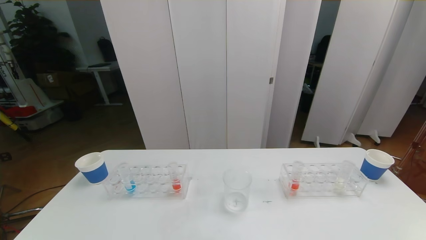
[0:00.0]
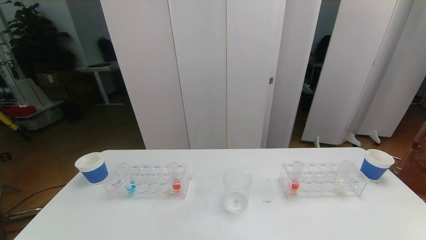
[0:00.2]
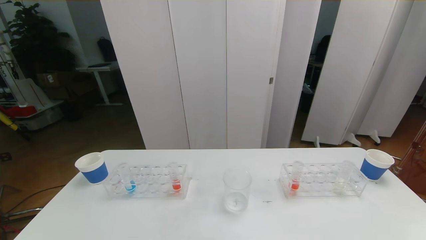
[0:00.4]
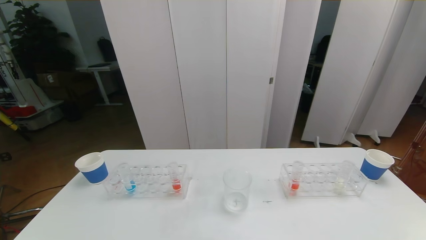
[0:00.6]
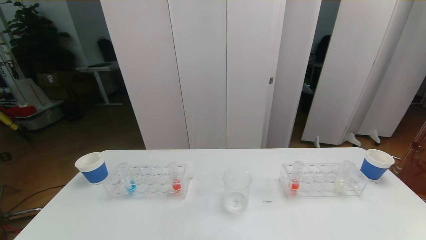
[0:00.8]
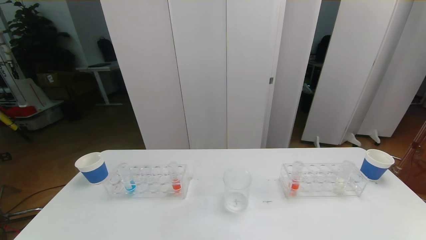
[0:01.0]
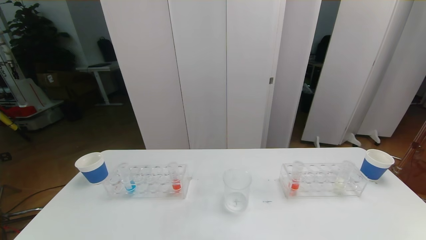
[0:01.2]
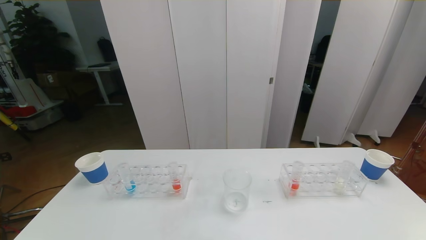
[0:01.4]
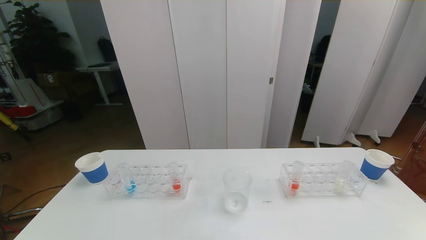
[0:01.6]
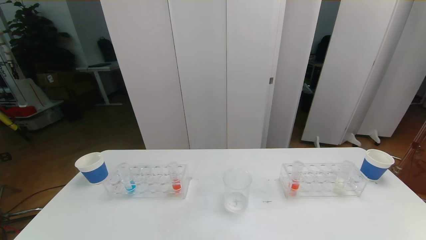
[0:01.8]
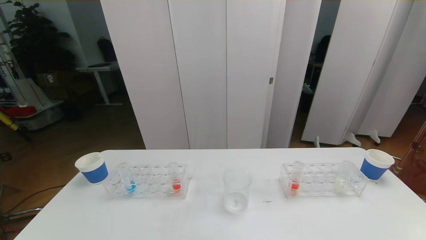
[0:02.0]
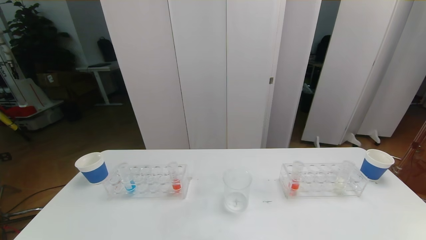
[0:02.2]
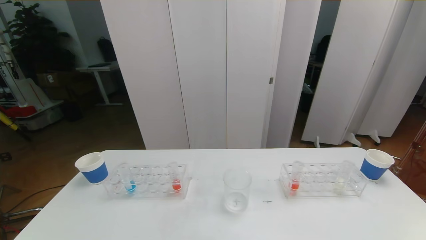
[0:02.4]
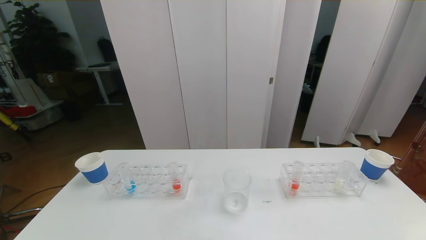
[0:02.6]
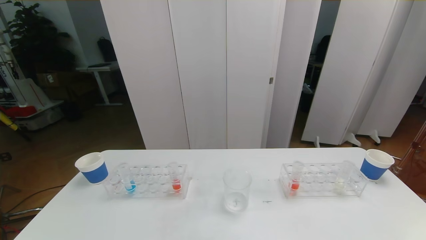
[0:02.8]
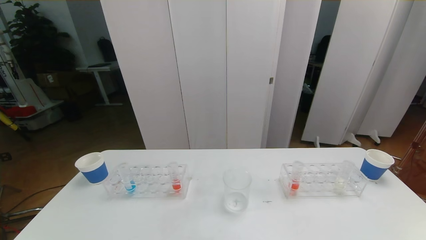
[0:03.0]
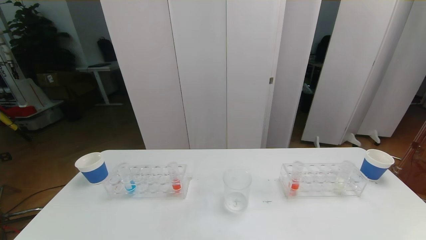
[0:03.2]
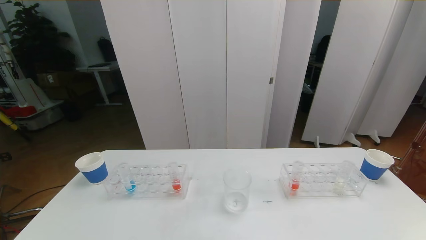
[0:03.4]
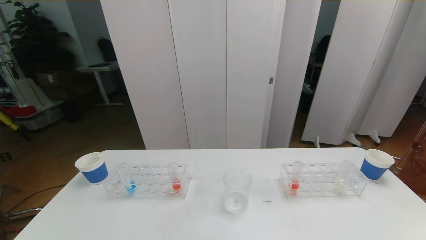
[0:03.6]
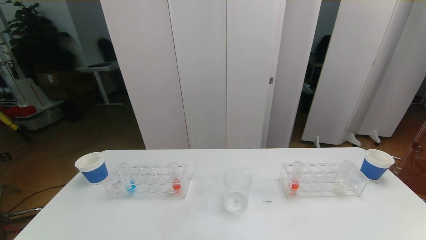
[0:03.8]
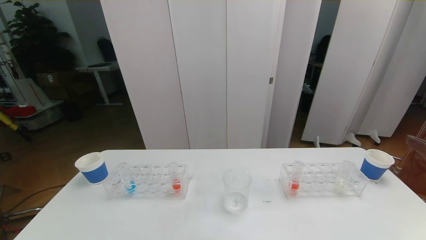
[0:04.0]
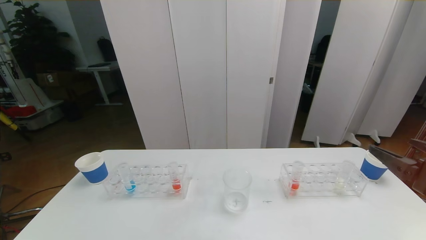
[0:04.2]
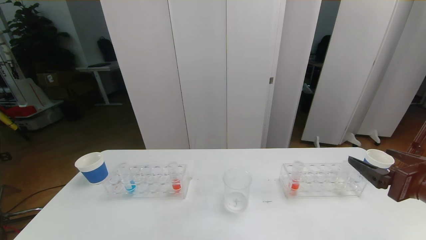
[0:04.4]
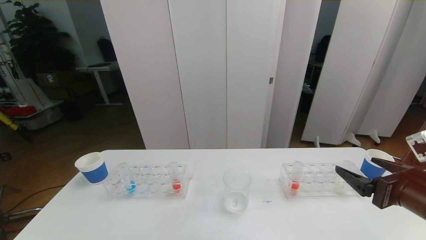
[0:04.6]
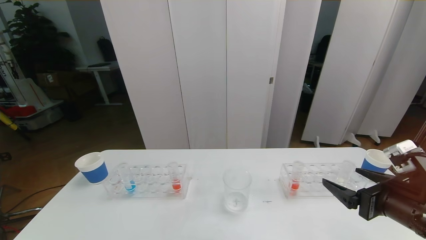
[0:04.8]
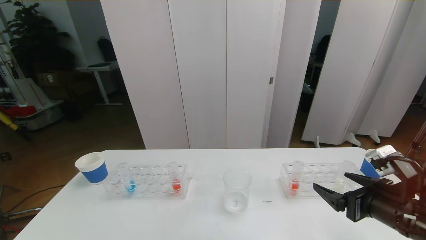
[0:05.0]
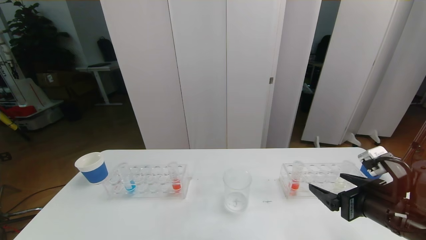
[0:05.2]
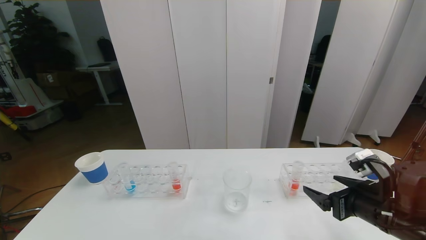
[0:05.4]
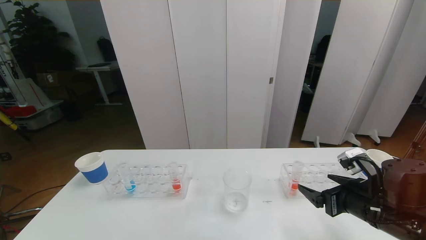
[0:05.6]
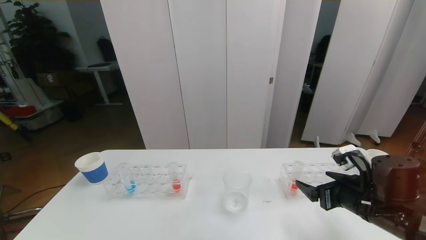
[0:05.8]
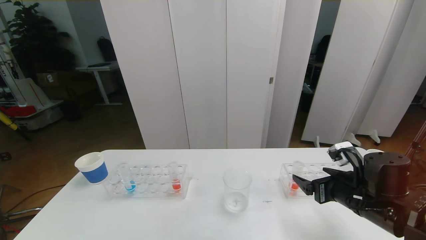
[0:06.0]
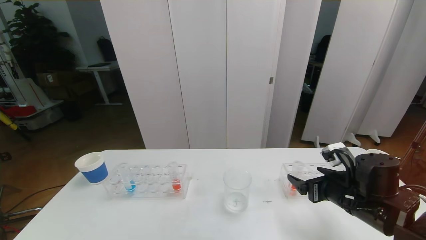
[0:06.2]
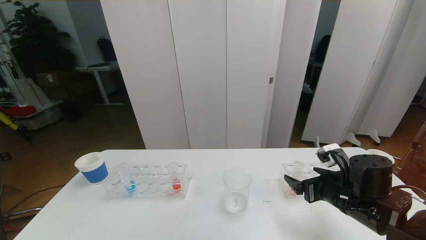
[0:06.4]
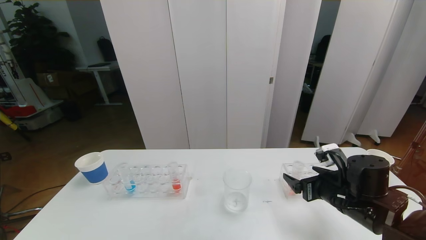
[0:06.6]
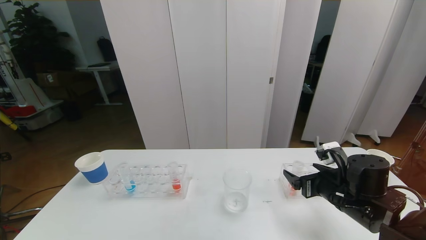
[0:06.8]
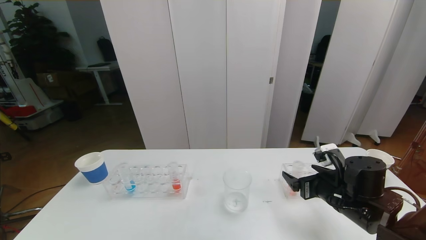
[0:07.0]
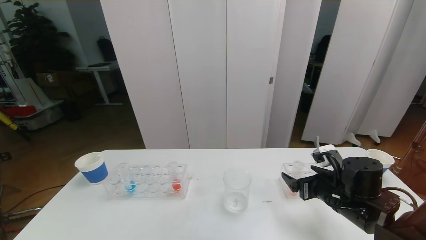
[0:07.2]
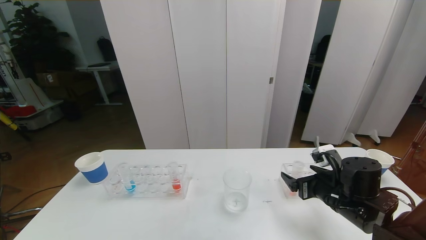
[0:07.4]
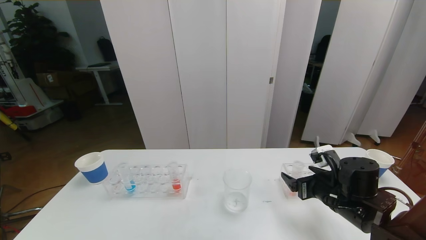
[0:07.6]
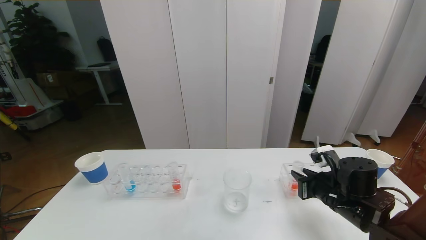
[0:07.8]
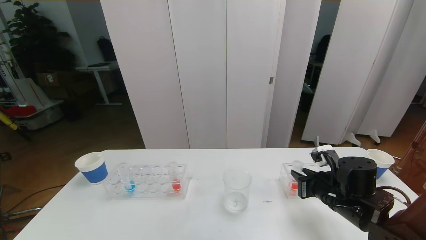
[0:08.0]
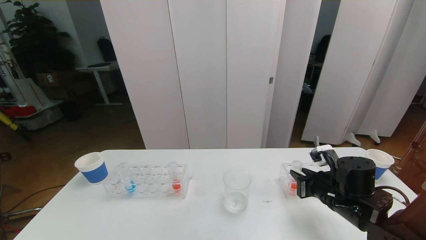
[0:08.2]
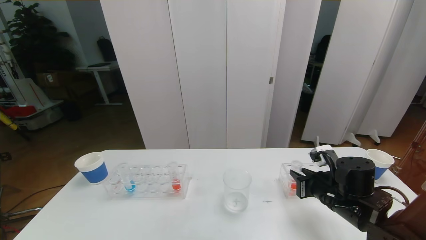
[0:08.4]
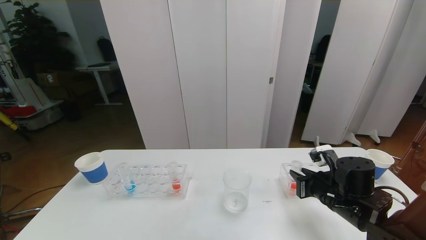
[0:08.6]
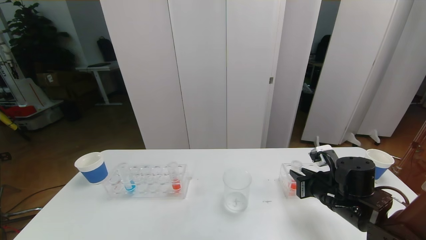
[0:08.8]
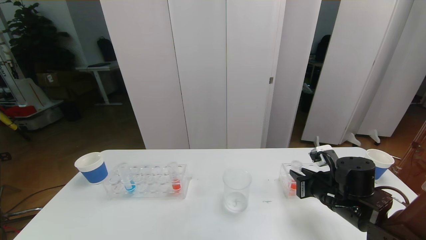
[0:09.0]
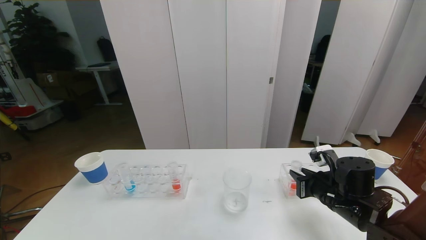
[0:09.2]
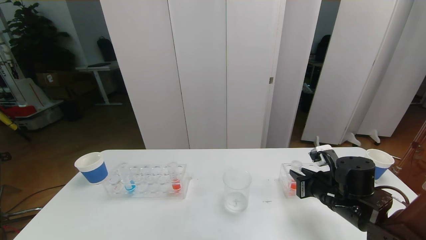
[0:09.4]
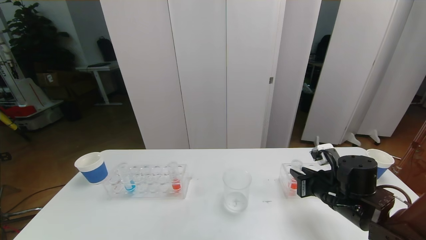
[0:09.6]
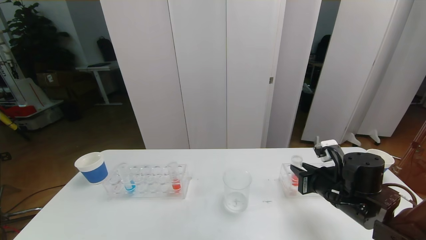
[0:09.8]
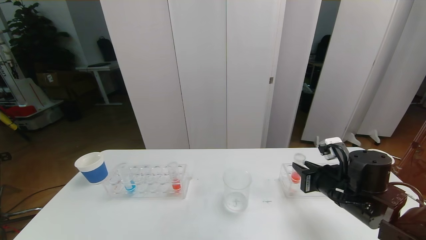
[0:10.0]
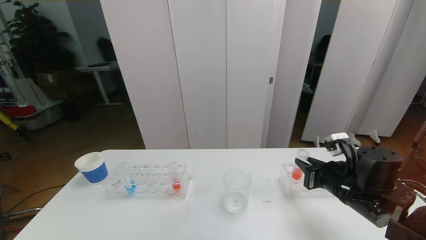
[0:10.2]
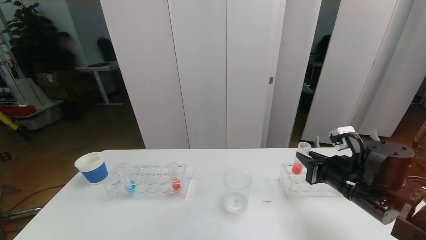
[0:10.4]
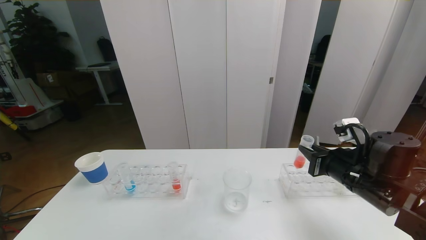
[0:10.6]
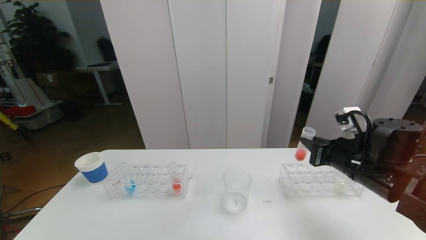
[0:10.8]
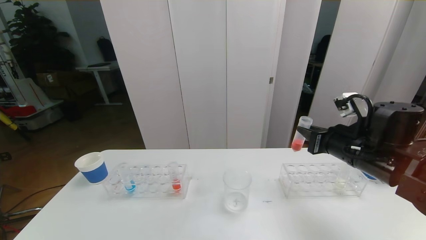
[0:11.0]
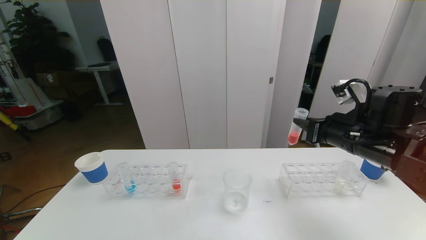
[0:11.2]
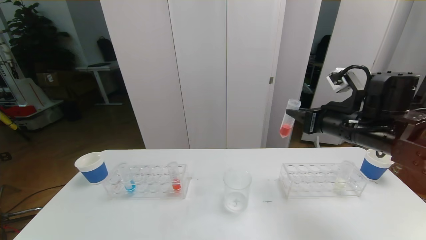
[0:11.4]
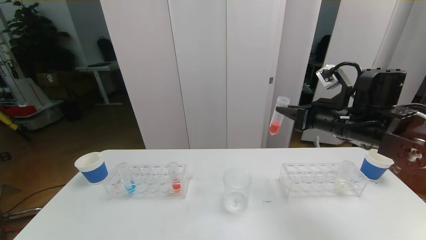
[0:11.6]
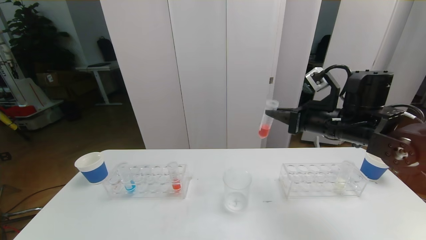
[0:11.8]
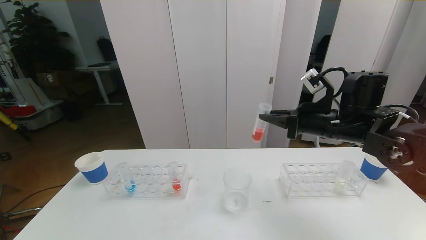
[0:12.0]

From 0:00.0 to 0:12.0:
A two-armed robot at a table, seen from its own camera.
Task of the whole recording: pick up the test tube with red pigment the test tube with blue pigment and the test tube with white pigment by grippers and pour them into the beaker.
From 0:00.0 to 0:01.6: Neither gripper changes place.
From 0:03.0 to 0:04.4: The right gripper travels forward by roughly 20 cm.
From 0:04.4 to 0:06.0: The right gripper travels downward, forward and to the left by roughly 15 cm.
From 0:06.0 to 0:07.6: The grippers move only a little.
From 0:07.6 to 0:09.0: The right gripper closes.
From 0:09.0 to 0:10.4: The right gripper shifts approximately 5 cm upward.
From 0:10.4 to 0:12.0: The right gripper moves upward and forward, about 10 cm.

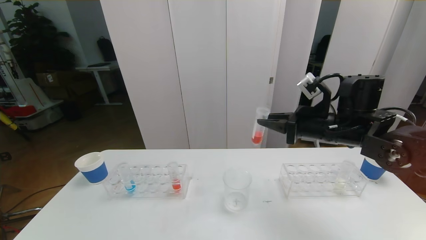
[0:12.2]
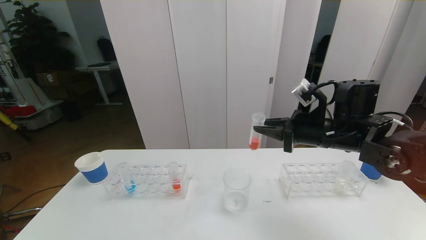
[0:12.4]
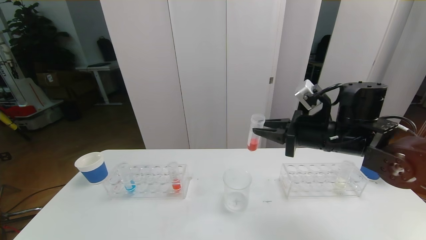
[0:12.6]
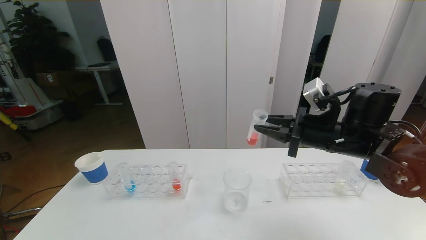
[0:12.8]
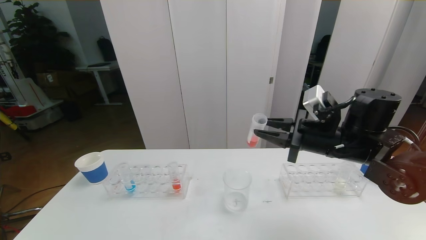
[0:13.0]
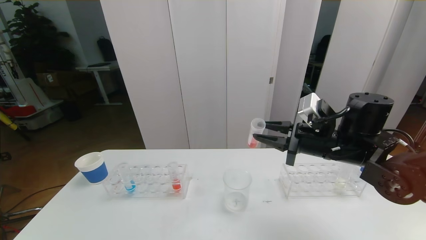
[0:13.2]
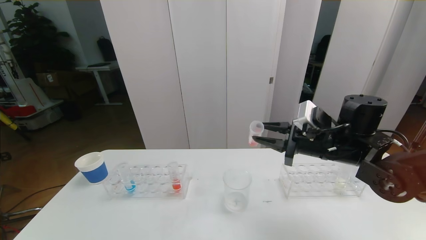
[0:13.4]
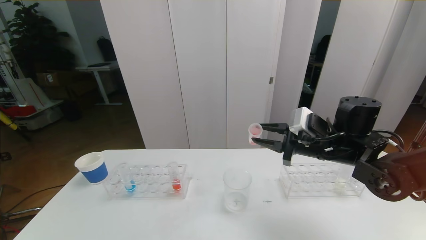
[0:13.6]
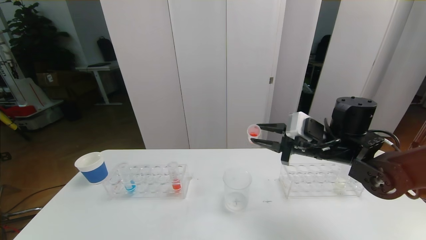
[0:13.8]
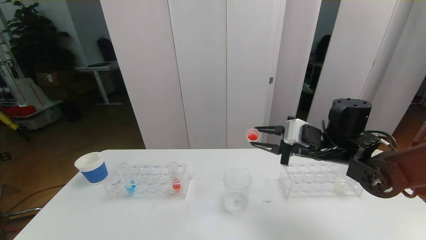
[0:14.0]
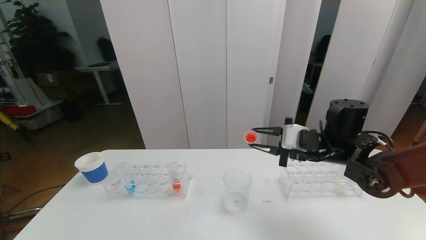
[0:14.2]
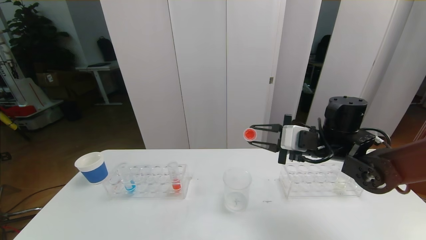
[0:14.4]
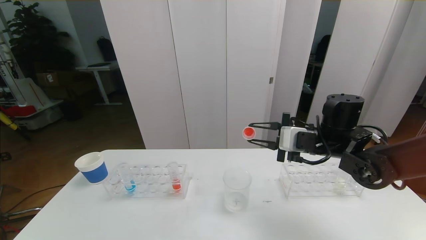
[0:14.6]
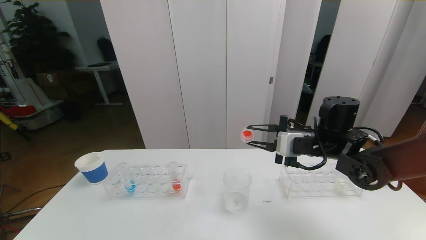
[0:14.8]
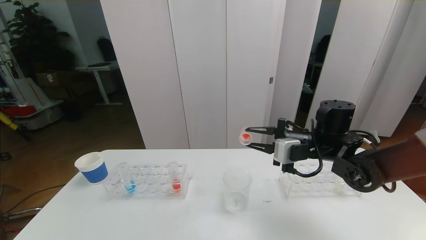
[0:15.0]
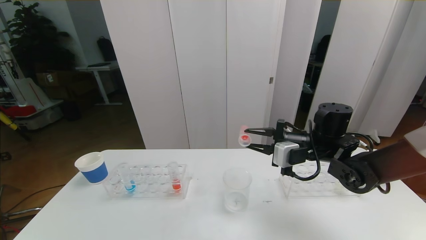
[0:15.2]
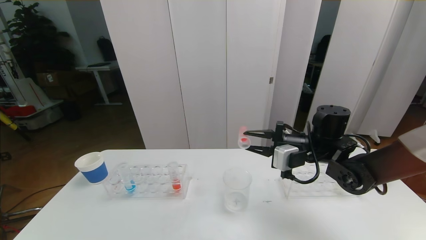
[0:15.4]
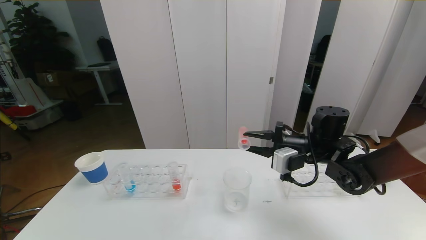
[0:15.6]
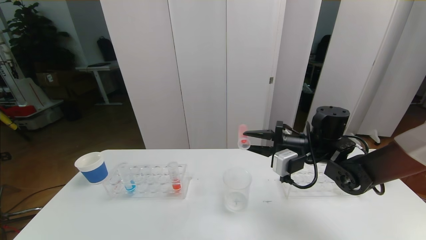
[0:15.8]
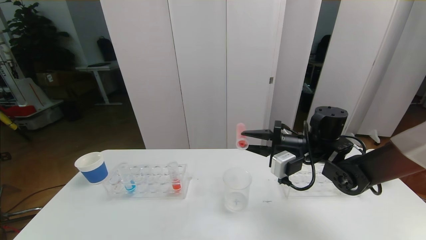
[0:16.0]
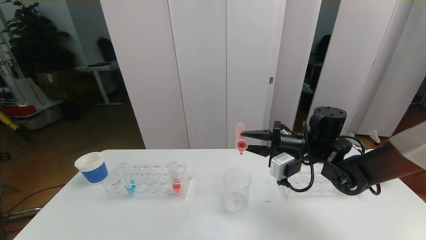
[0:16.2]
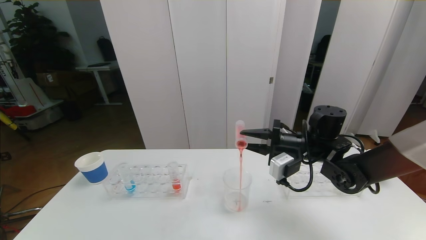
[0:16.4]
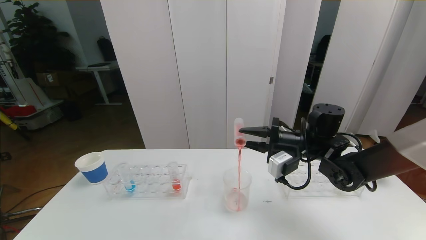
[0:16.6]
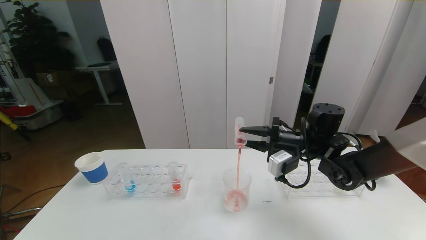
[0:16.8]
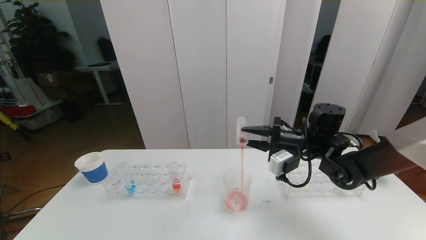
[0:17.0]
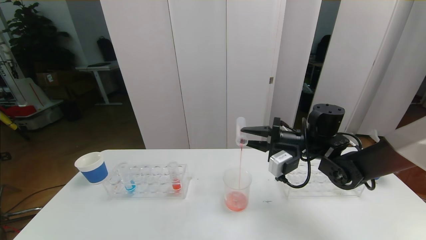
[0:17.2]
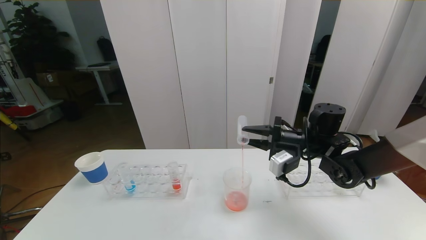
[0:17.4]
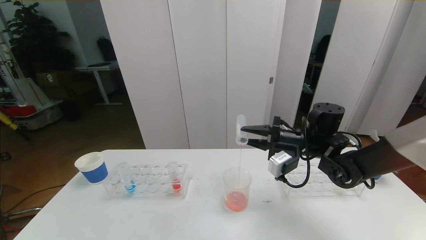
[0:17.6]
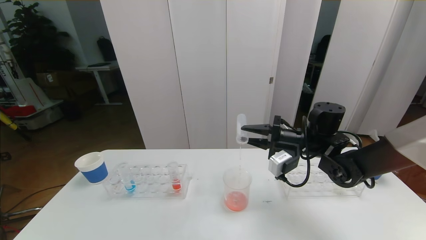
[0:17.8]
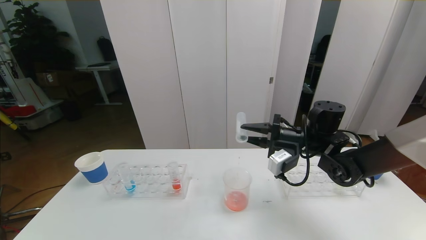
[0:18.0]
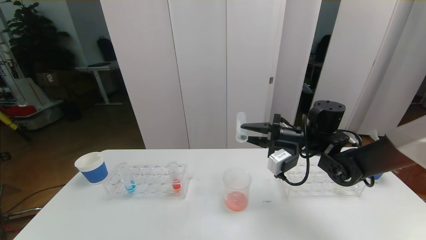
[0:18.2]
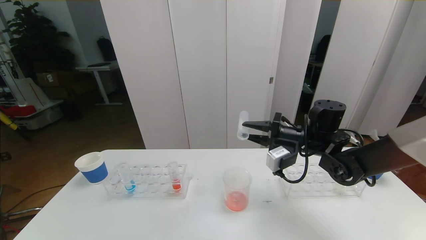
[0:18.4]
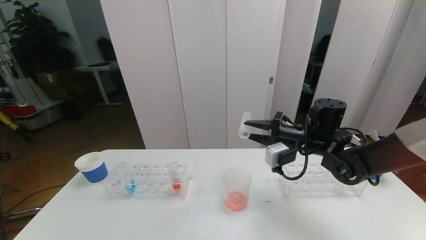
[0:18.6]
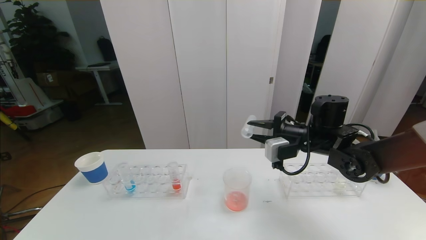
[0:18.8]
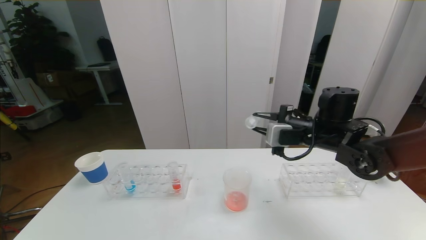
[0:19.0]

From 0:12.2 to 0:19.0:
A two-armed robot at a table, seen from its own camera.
Task of the whole recording: pick up the test tube with red pigment the test tube with blue pigment and the test tube with white pigment by grippers and pour them into the beaker.
From 0:15.0 to 0:16.2: There are only small adjustments of the grippers.
From 0:16.2 to 0:17.6: There are only small adjustments of the grippers.
